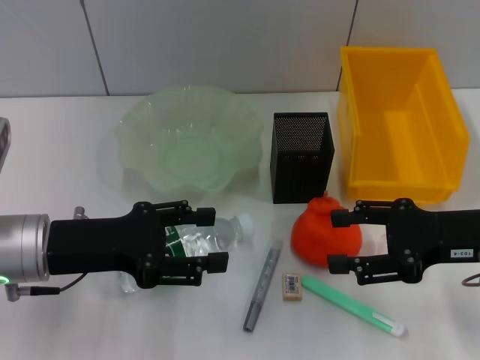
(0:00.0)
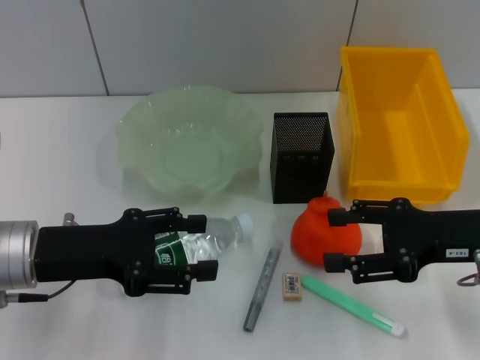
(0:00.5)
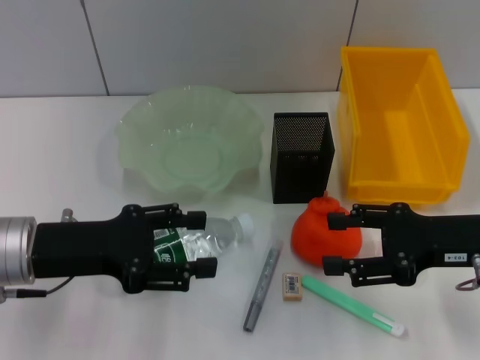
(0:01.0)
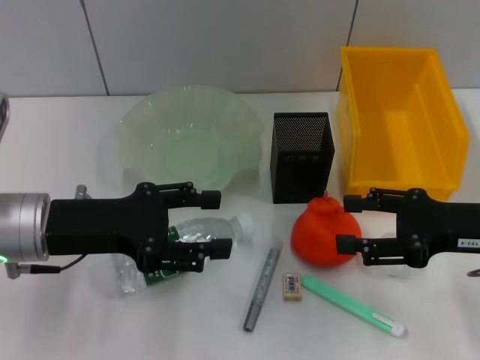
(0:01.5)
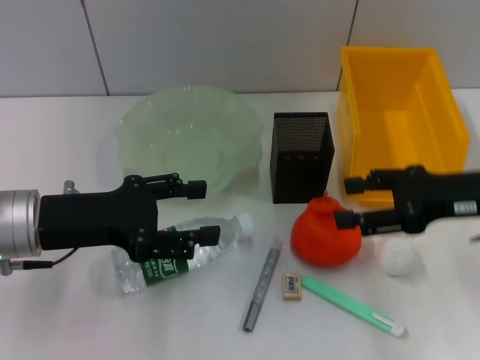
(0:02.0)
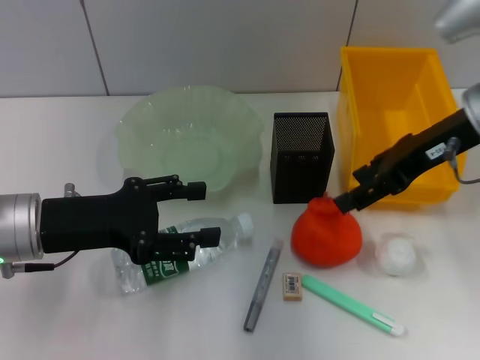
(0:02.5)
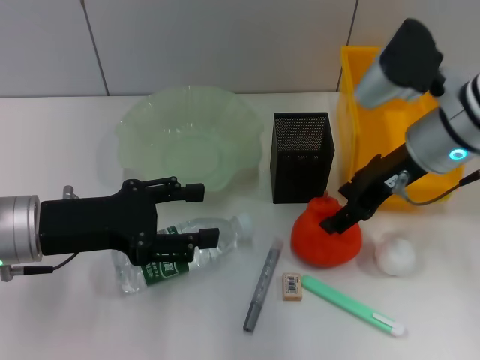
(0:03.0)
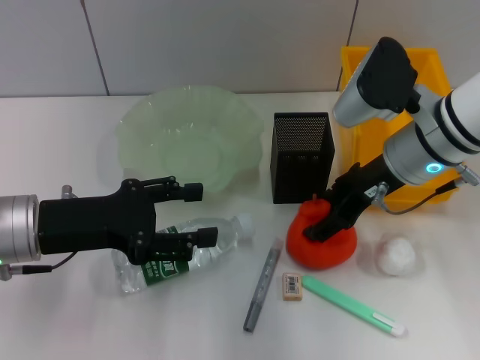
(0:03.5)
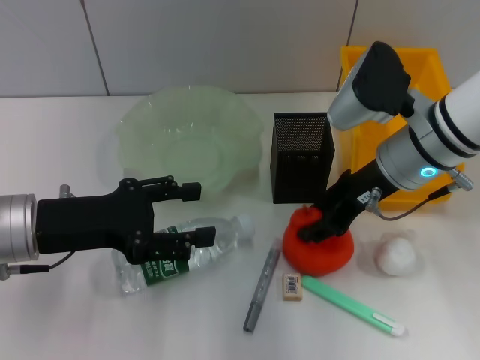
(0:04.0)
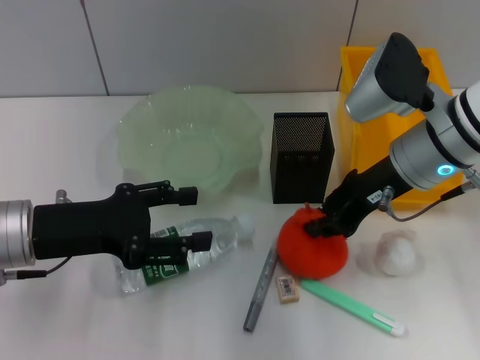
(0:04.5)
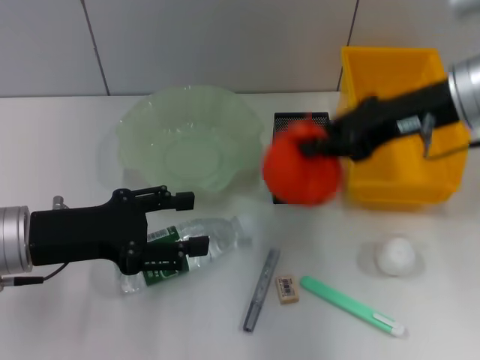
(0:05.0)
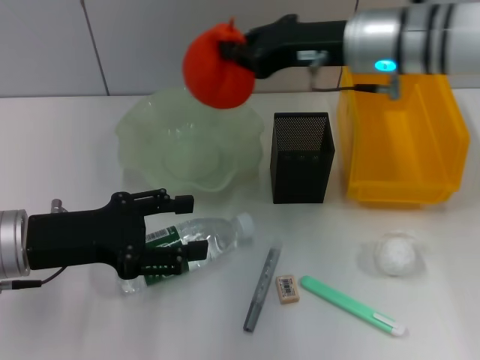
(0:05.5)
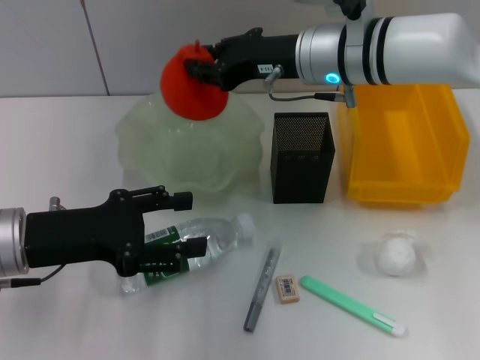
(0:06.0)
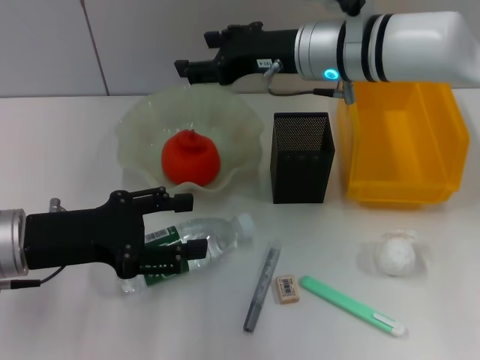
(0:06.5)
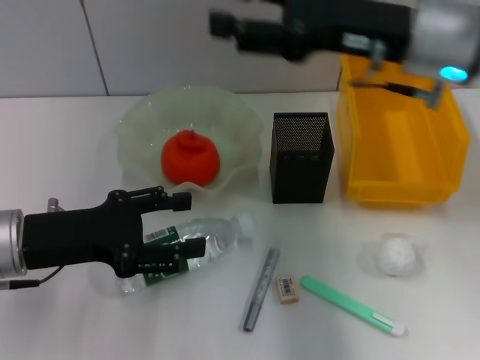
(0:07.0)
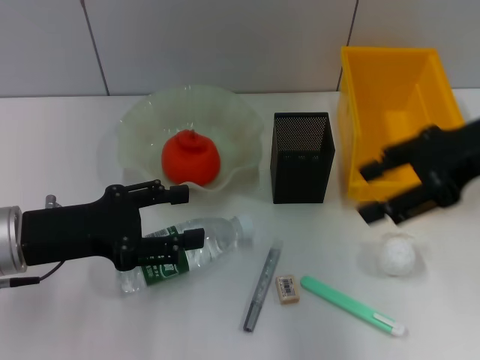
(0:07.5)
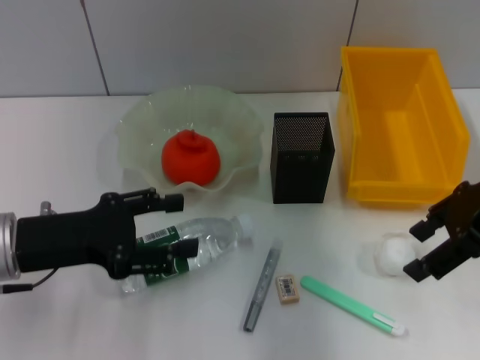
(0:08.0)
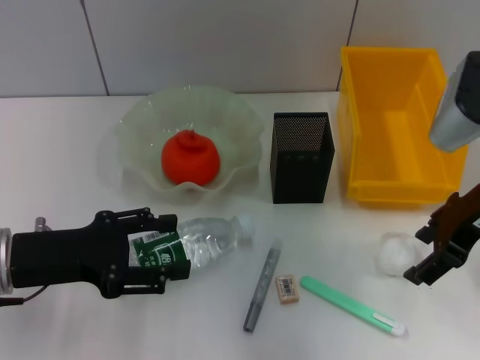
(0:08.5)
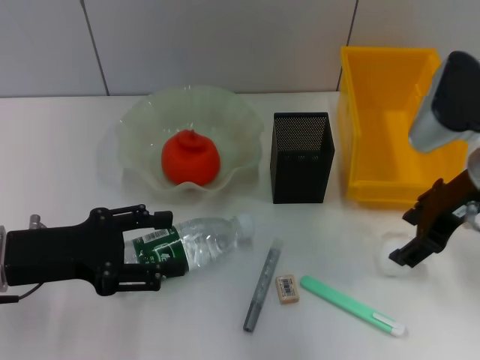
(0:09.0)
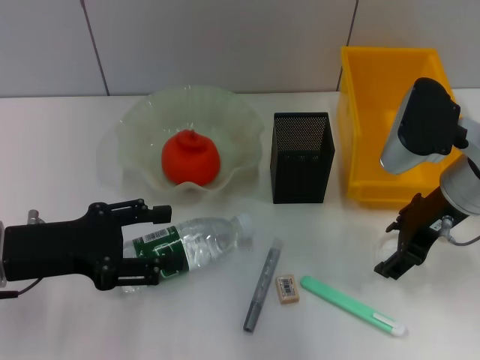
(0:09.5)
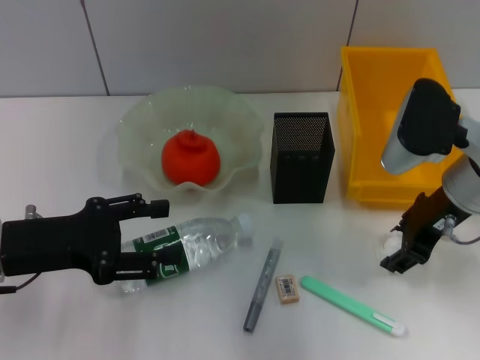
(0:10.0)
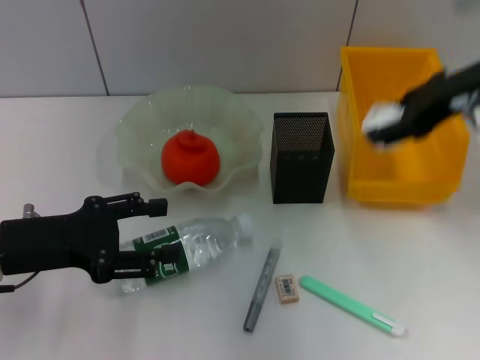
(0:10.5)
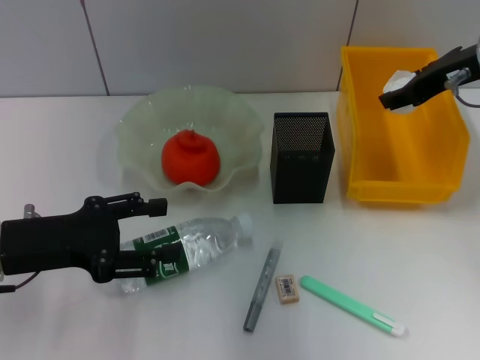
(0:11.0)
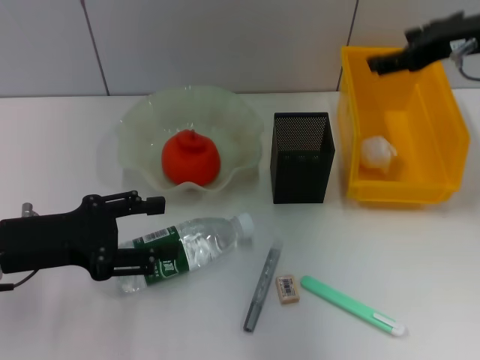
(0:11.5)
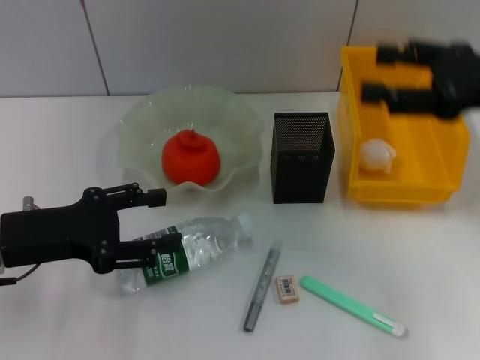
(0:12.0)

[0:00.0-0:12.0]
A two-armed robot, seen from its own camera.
Step, 0:00.0 to 0:04.0: Grab the orange with the right hand.
Step, 0:04.5 to 0:06.5: Place the orange into the fruit bowl with the right hand.
Step, 0:07.0 to 0:09.5: Grab the paper ball with the right hand.
Step, 0:10.0 to 0:11.0: Place the paper ball into the trash can with the right hand.
0:00.0 to 0:02.0: The grippers make only small movements.
0:02.0 to 0:04.0: The right gripper heads to the left and forward, covering roughly 15 cm.
0:04.0 to 0:06.0: The right gripper moves to the left and forward, about 10 cm, and closes its fingers.
0:06.0 to 0:08.0: The right gripper goes about 20 cm to the right and backward, and opens up.
0:08.0 to 0:10.0: The right gripper heads downward, covering some 5 cm.
0:10.0 to 0:12.0: The right gripper is displaced to the right and upward by approximately 10 cm.

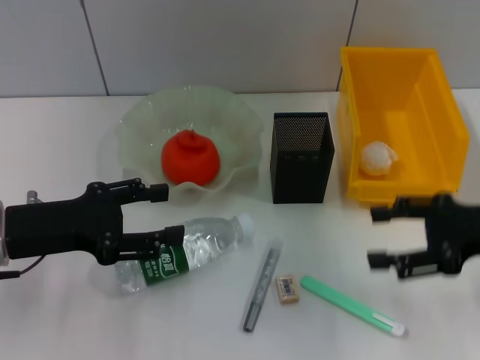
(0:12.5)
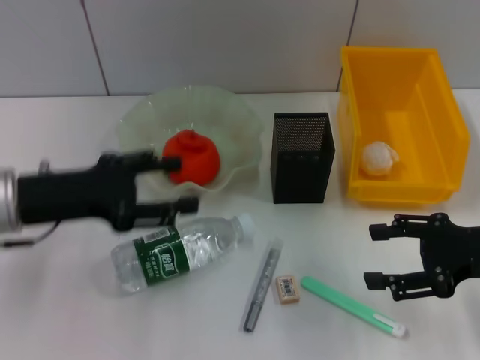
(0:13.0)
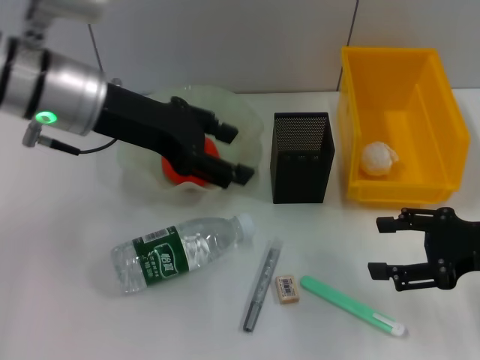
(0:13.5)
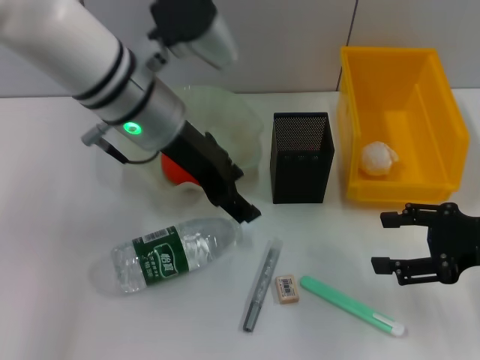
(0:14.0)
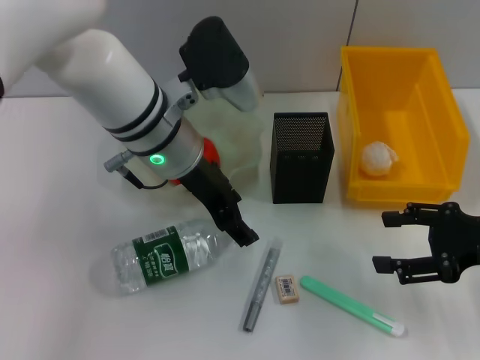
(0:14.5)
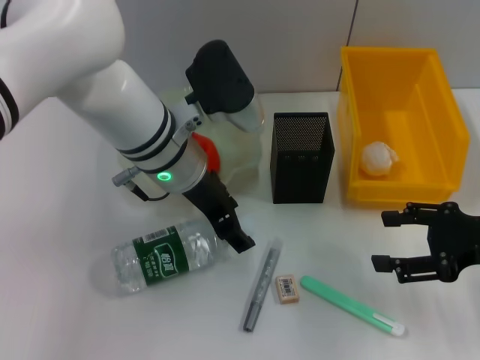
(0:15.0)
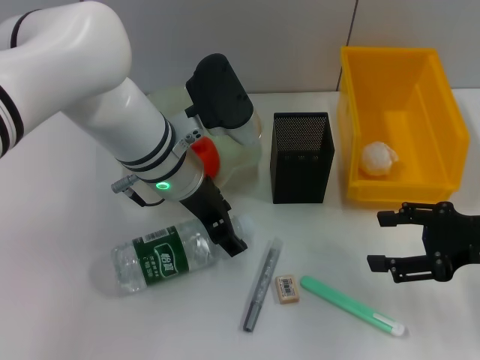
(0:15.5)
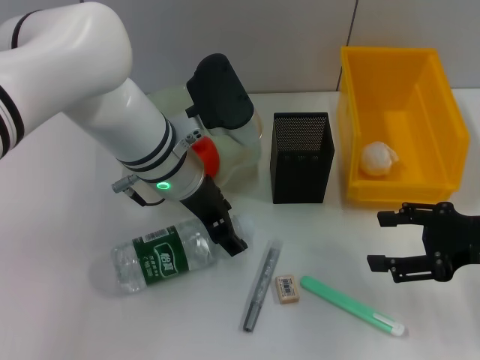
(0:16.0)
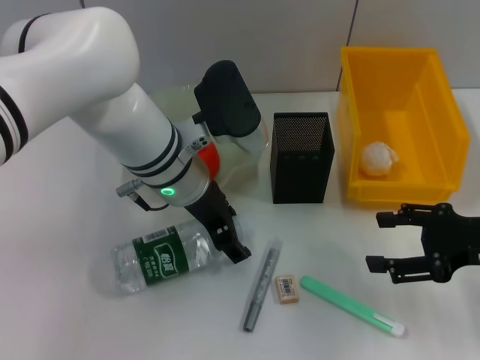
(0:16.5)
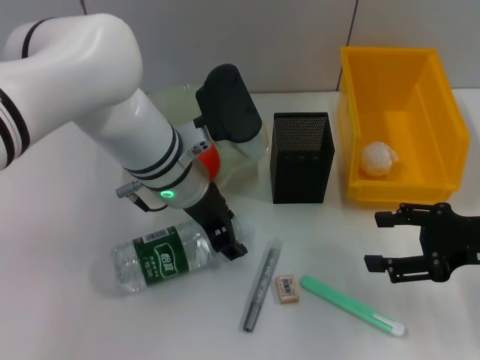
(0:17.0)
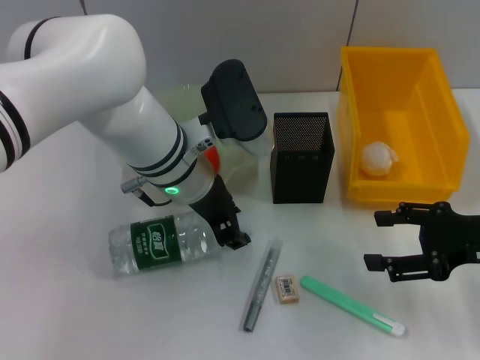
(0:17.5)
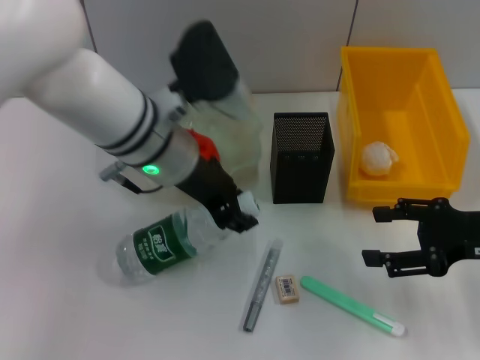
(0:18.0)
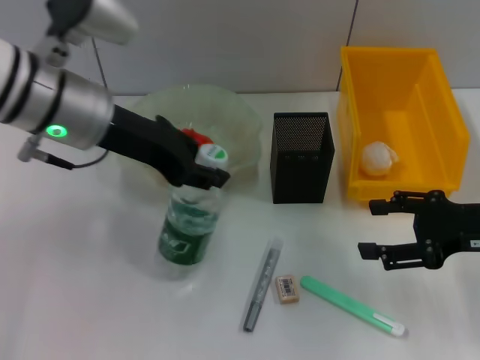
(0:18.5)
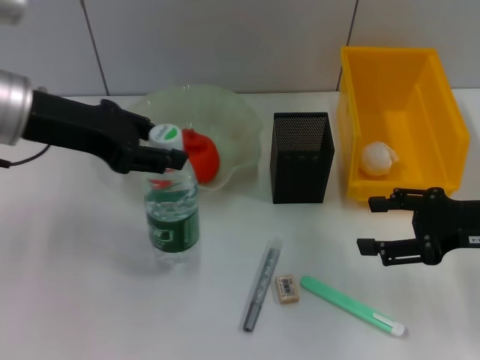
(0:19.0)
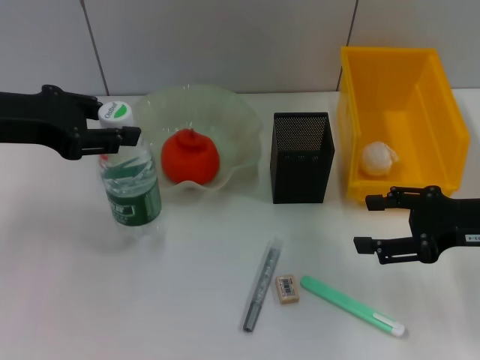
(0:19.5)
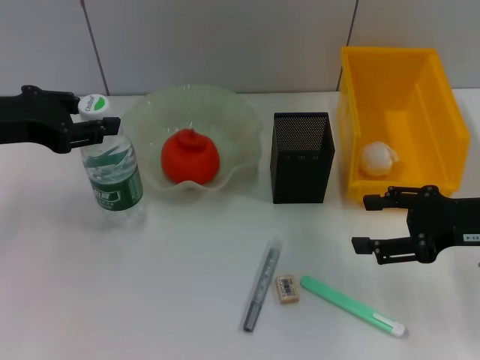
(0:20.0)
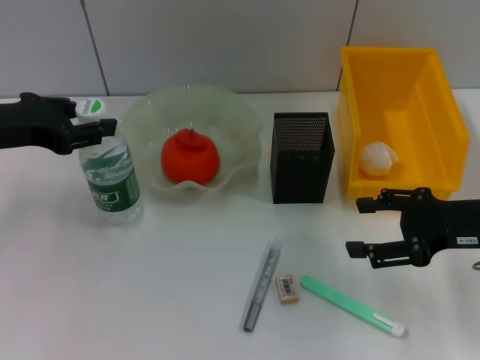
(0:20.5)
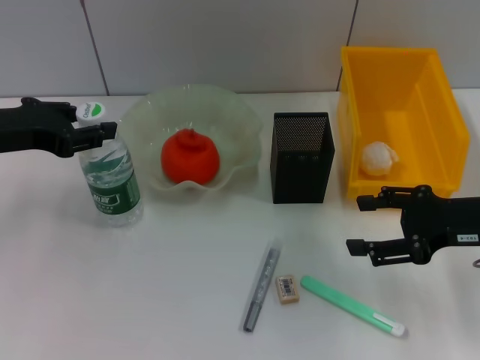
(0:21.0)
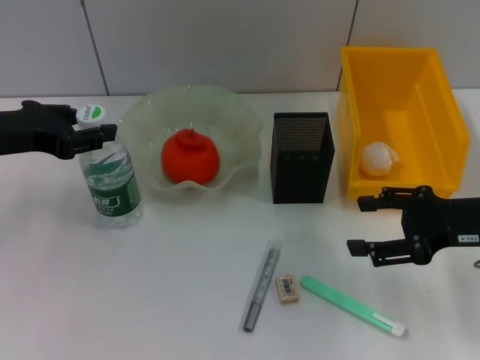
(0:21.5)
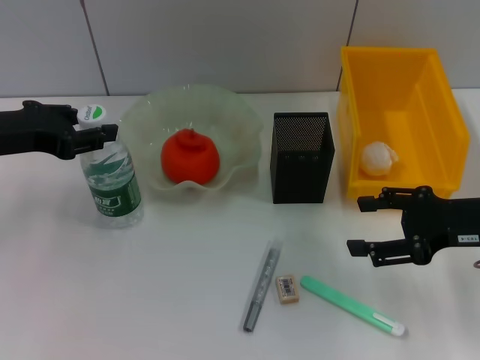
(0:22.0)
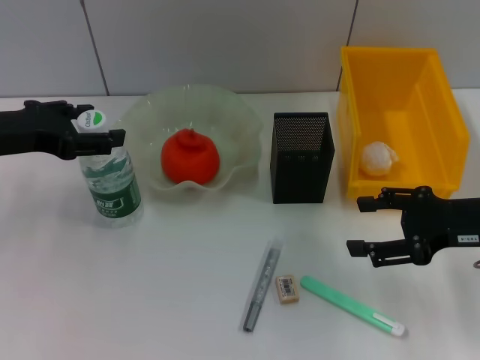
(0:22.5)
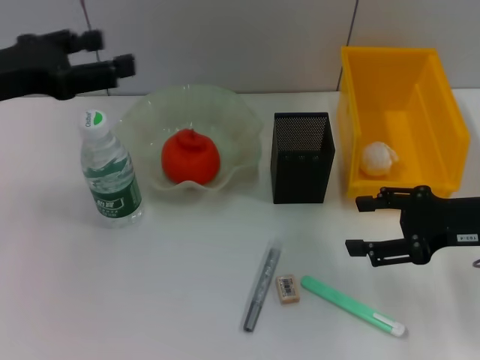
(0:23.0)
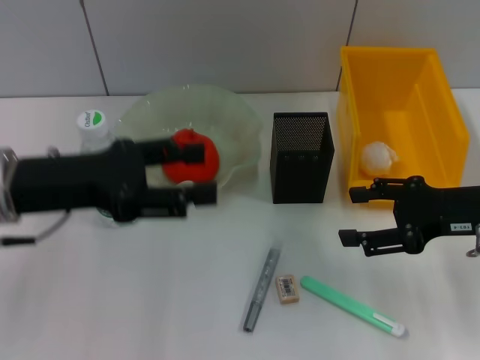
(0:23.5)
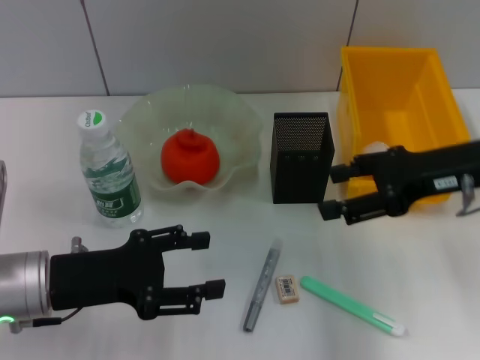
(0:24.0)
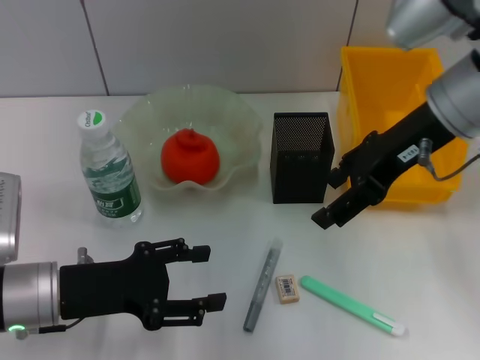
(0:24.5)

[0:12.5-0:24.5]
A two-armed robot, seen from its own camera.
Step, 0:12.5 to 0:17.0: Grab the water bottle with the left hand.
Step, 0:17.5 to 0:22.0: Place the water bottle on the table with the left hand.
0:12.5 to 0:14.5: The left gripper moves to the right and forward, roughly 20 cm.
0:14.5 to 0:16.5: The grippers move only a little.
0:16.5 to 0:18.5: The left gripper is displaced to the left and upward by roughly 10 cm, and closes its fingers.
0:18.5 to 0:20.5: The left gripper travels to the left by roughly 10 cm.
0:20.5 to 0:22.5: Both grippers stay put.
0:22.5 to 0:24.5: The left gripper heads downward, backward and to the right, covering some 15 cm; the right gripper heads upward, to the left and forward, covering roughly 15 cm.

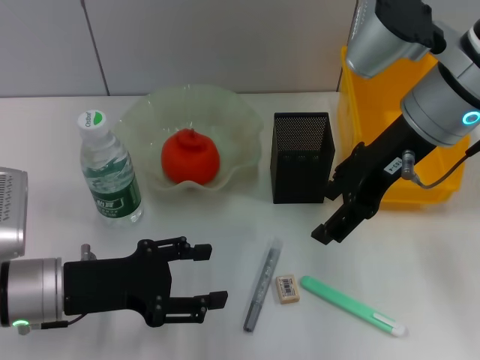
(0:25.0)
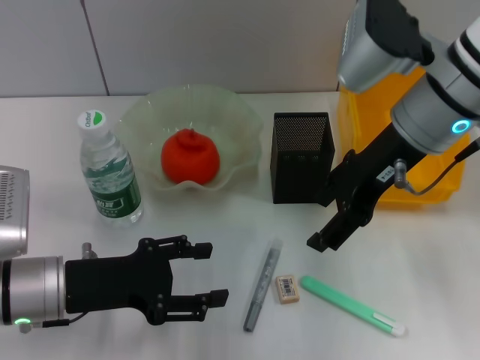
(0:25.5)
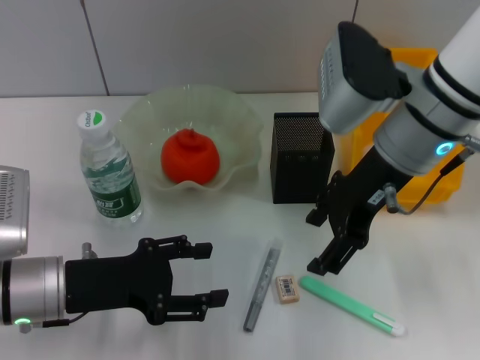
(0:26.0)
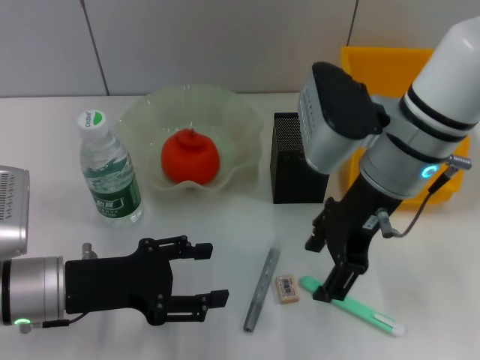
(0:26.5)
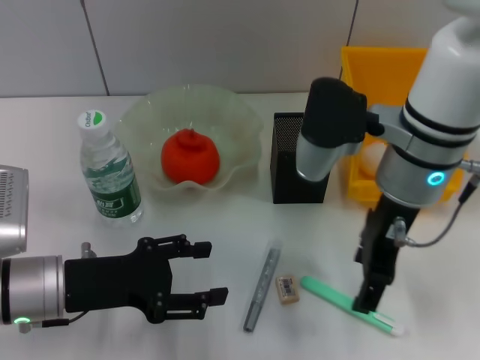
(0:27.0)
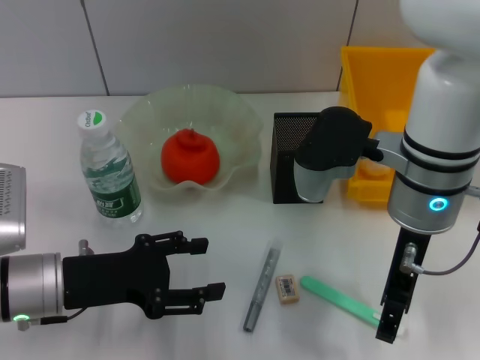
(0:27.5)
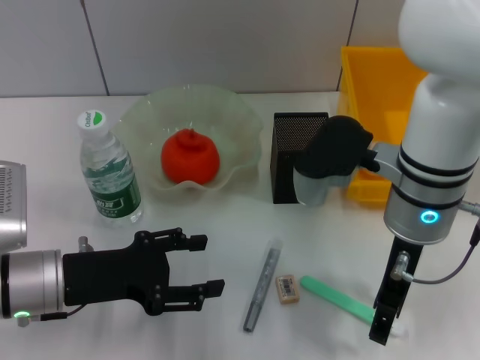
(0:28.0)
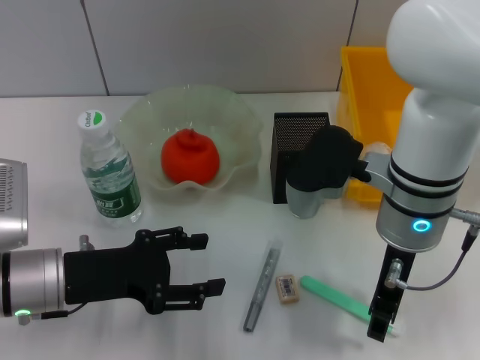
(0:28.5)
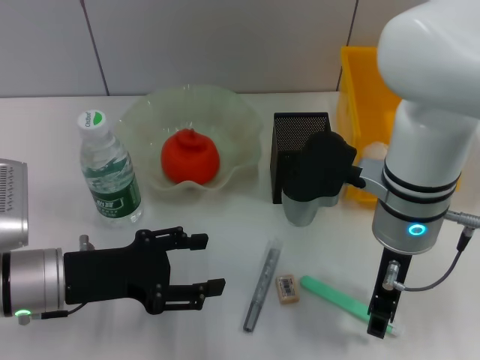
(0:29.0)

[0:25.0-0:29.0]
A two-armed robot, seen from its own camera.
0:25.0 to 0:27.0: The right gripper ends up about 5 cm from where it was.
0:27.0 to 0:29.0: The right gripper closes its fingers.
